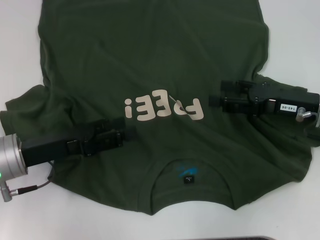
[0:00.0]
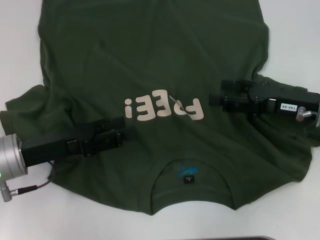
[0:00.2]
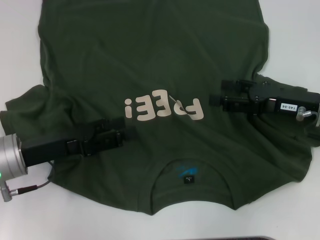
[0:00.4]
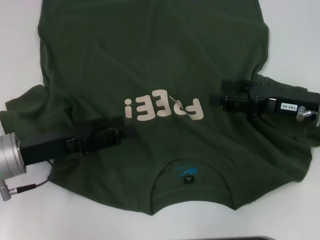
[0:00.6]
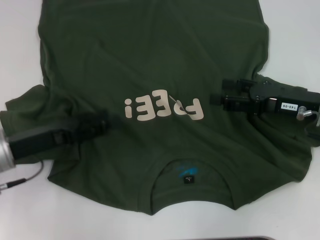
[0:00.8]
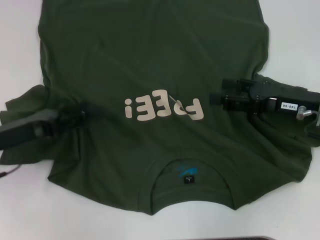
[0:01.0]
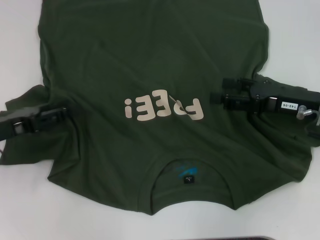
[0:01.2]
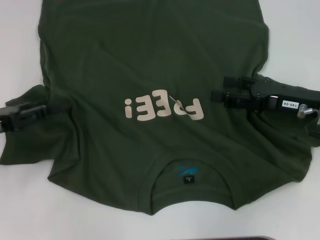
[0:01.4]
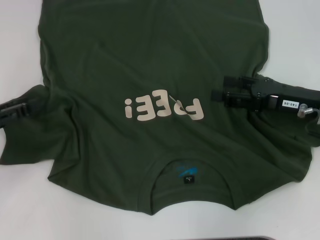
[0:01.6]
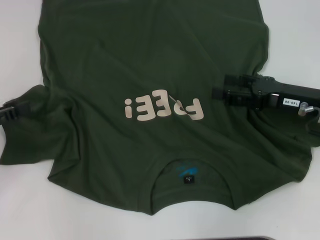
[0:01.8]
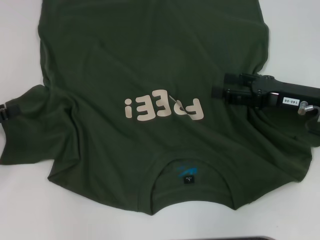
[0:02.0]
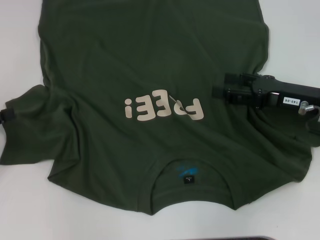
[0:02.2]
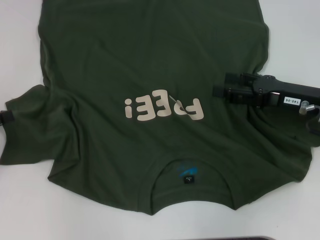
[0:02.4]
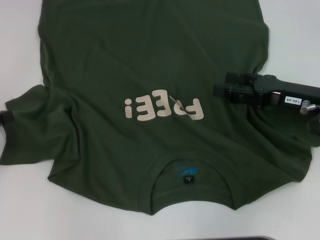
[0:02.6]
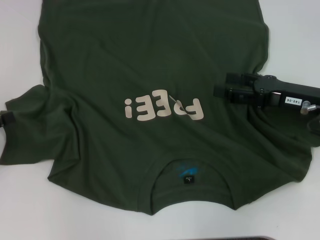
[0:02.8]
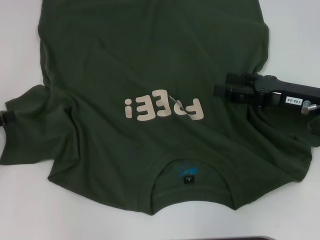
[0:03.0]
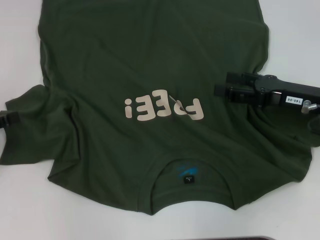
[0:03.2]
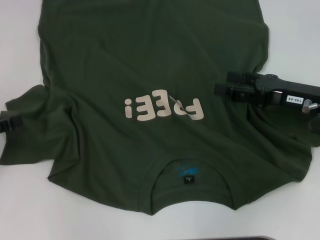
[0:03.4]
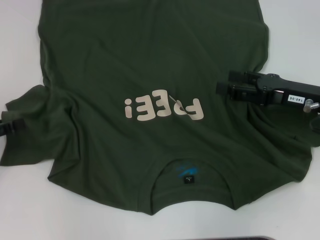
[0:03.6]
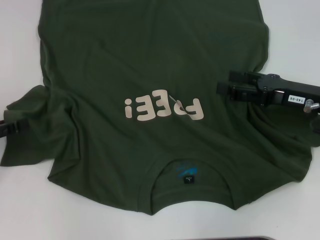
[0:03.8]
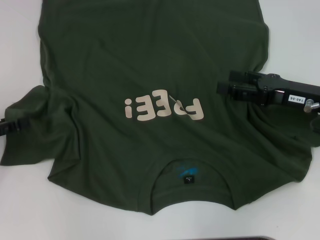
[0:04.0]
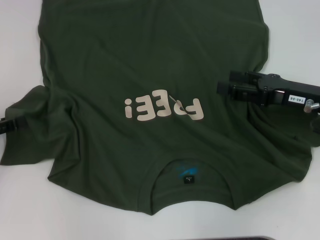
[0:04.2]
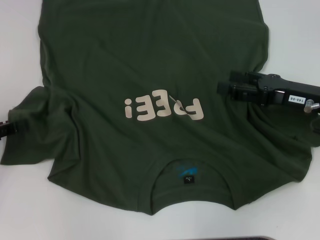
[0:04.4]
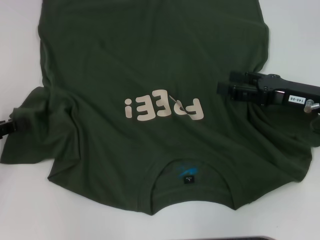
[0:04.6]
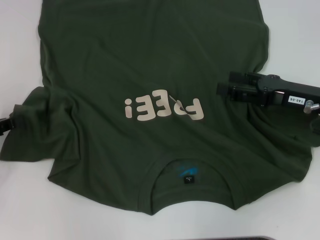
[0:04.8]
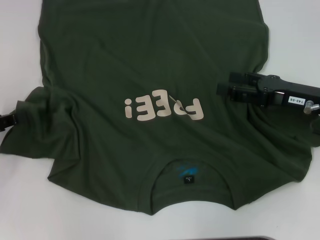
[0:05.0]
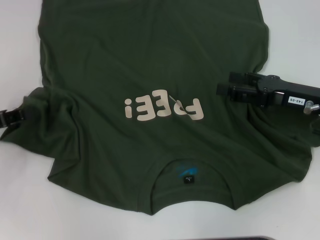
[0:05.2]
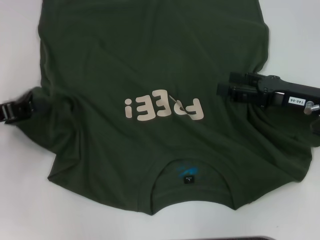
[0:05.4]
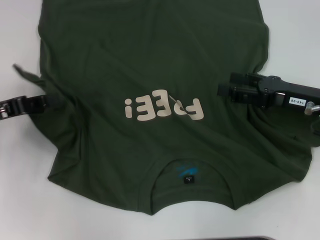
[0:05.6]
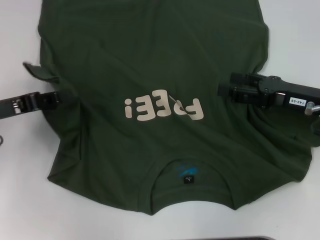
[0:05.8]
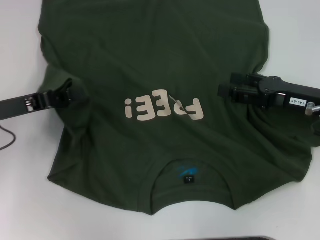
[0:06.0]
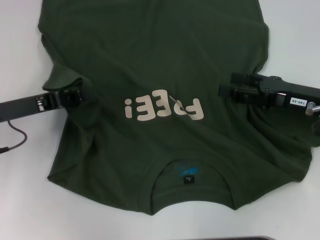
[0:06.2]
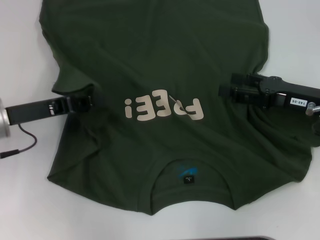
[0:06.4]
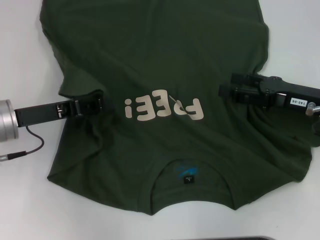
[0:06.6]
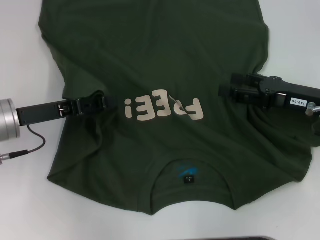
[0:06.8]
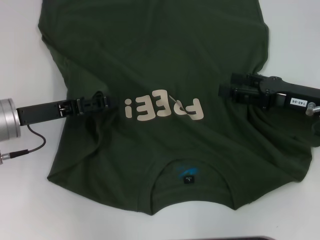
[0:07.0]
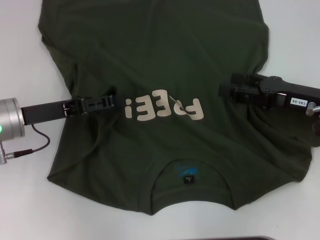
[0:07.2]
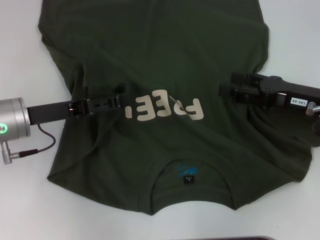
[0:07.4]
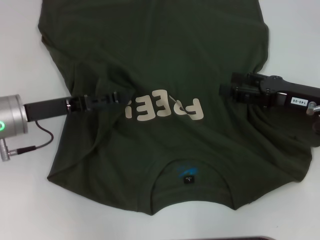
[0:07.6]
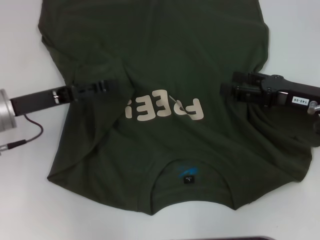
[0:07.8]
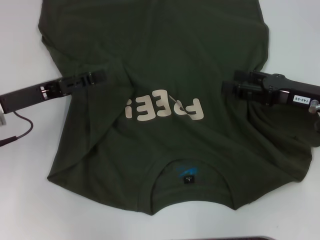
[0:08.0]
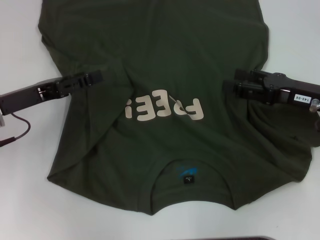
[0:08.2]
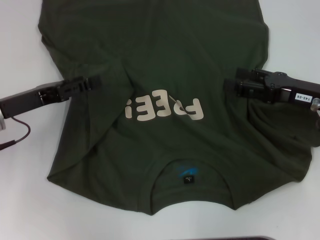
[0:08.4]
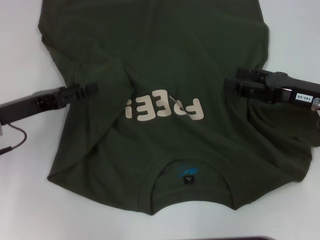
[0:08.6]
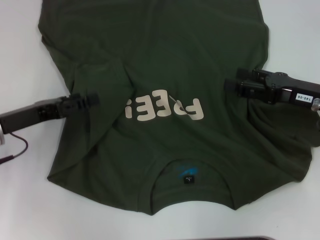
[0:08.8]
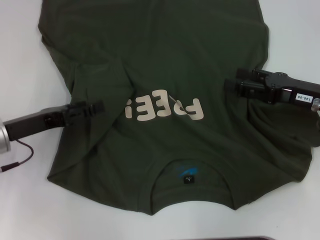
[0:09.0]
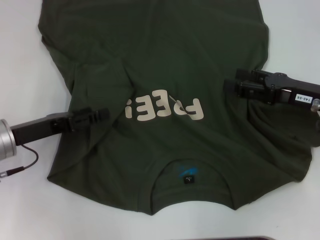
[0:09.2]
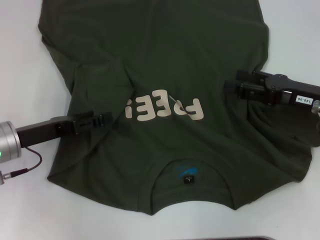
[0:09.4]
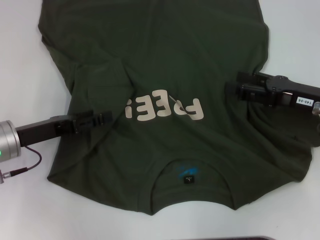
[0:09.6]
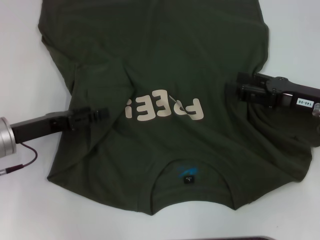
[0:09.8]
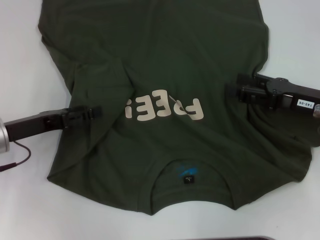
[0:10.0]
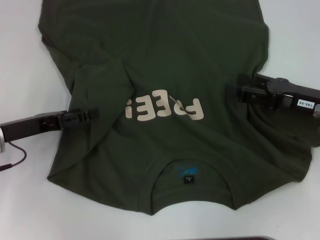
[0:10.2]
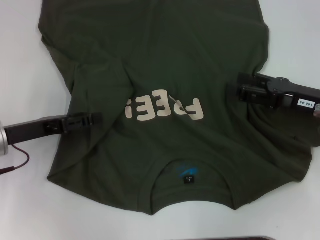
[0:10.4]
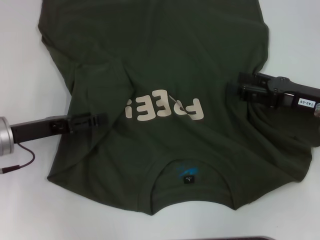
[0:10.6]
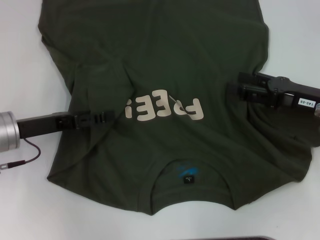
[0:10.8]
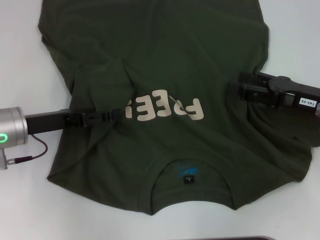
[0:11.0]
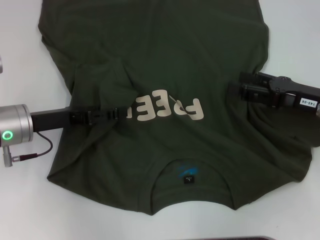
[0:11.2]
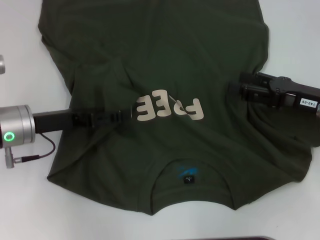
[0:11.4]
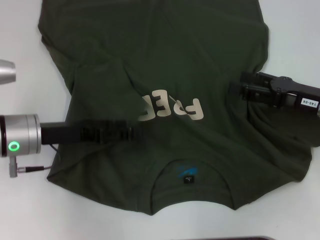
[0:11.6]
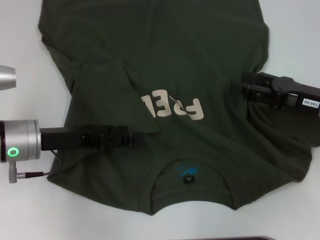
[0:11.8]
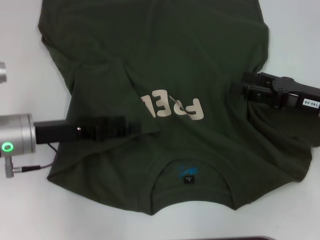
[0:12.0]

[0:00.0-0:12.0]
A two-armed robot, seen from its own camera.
Step, 0:00.0 to 0:10.8: Fold the bottom left sleeve with your left hand.
0:00.0 to 0:01.6: The left gripper travels to the left by approximately 10 cm.
0:01.6 to 0:04.4: The grippers make only small movements.
0:04.4 to 0:06.0: The left gripper goes roughly 10 cm to the right, and closes up.
0:06.0 to 0:07.6: The left gripper moves about 5 cm, and opens its fingers.
0:07.6 to 0:12.0: The grippers stay close to where they were, moving slightly.

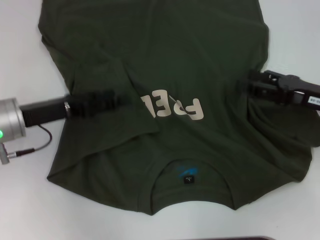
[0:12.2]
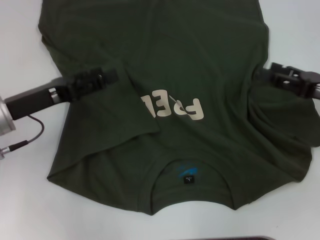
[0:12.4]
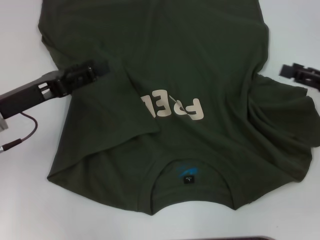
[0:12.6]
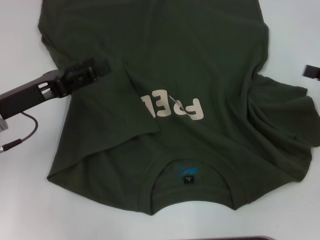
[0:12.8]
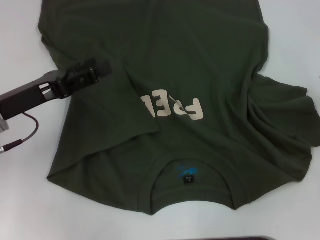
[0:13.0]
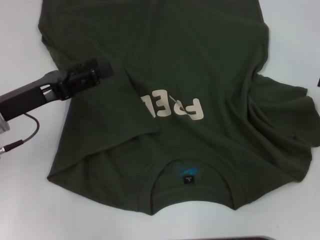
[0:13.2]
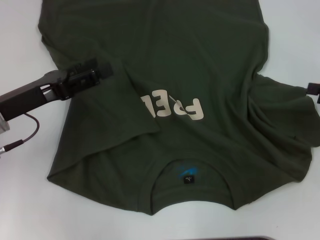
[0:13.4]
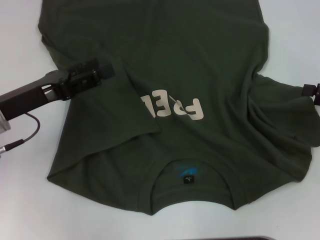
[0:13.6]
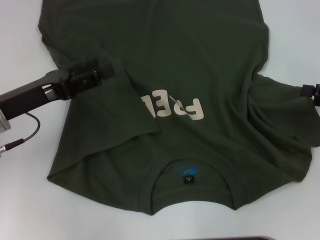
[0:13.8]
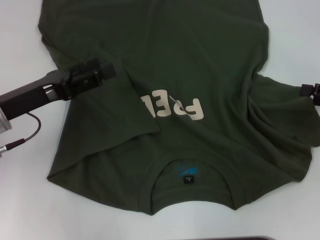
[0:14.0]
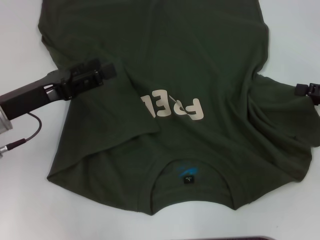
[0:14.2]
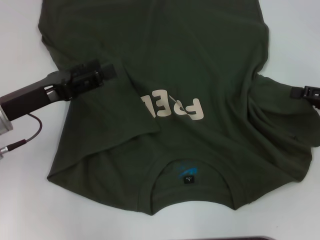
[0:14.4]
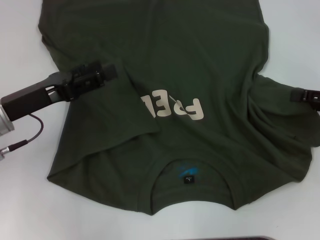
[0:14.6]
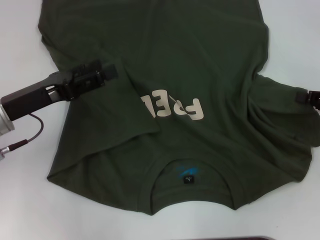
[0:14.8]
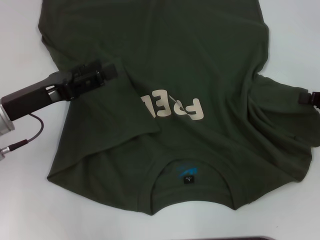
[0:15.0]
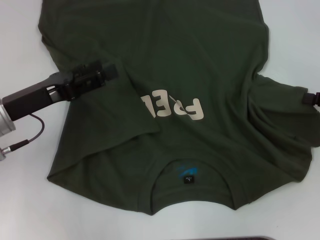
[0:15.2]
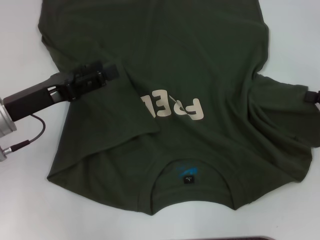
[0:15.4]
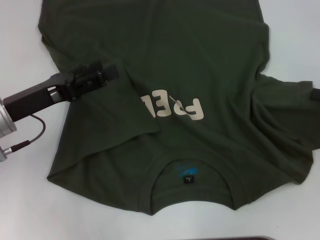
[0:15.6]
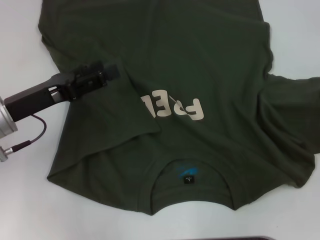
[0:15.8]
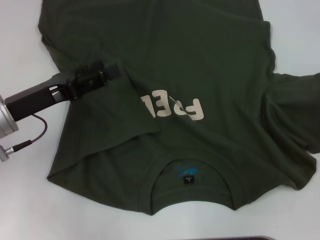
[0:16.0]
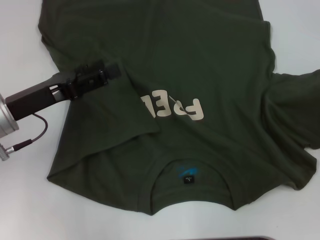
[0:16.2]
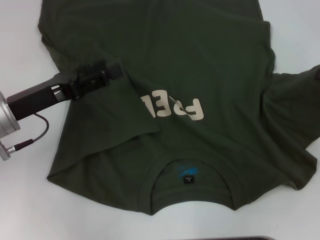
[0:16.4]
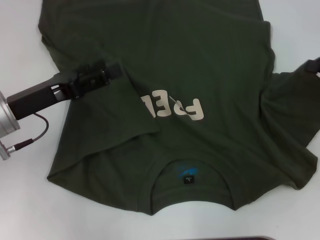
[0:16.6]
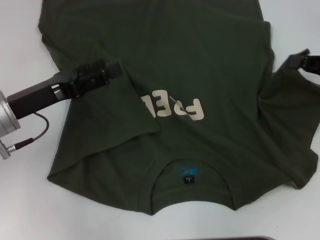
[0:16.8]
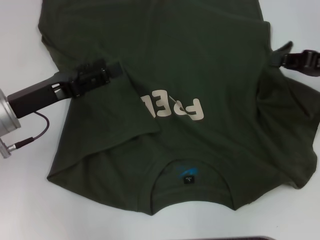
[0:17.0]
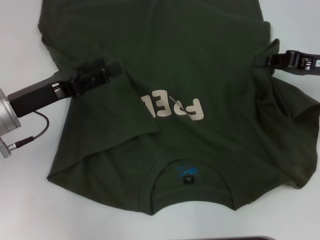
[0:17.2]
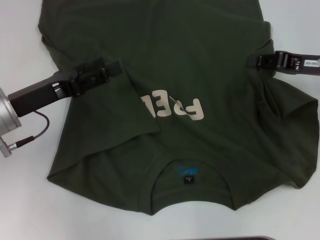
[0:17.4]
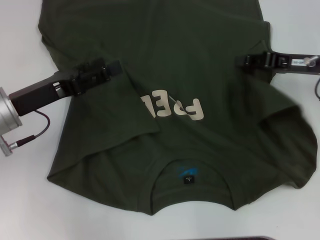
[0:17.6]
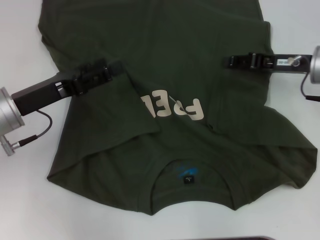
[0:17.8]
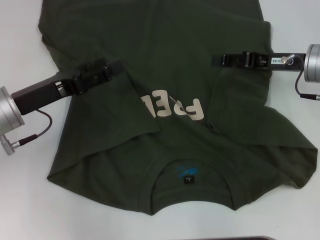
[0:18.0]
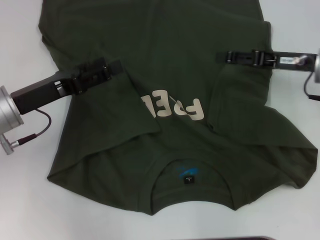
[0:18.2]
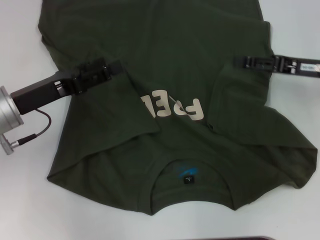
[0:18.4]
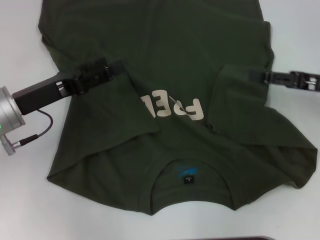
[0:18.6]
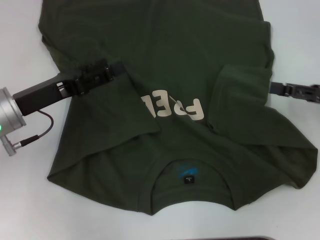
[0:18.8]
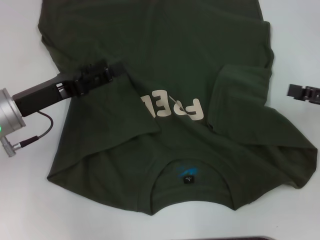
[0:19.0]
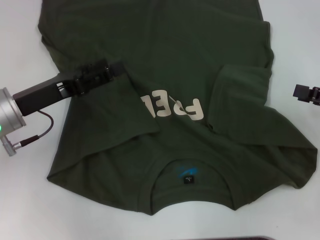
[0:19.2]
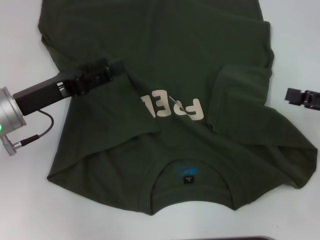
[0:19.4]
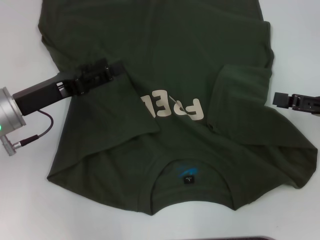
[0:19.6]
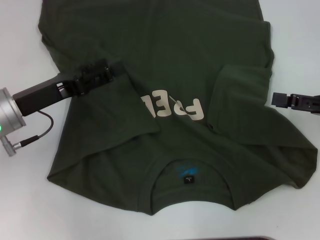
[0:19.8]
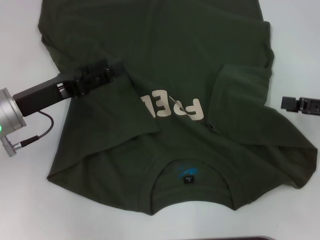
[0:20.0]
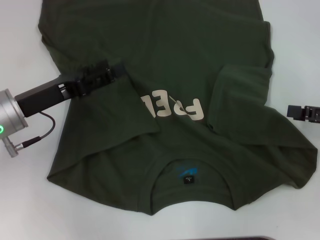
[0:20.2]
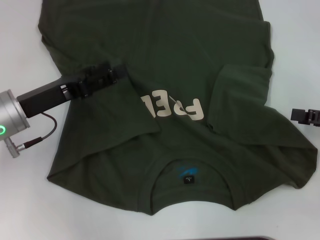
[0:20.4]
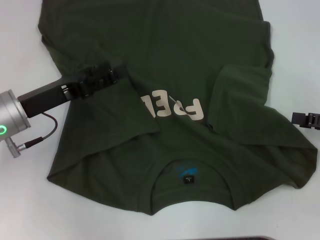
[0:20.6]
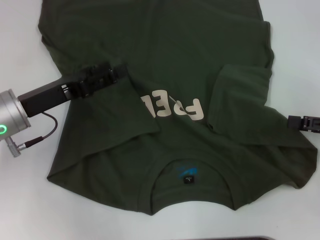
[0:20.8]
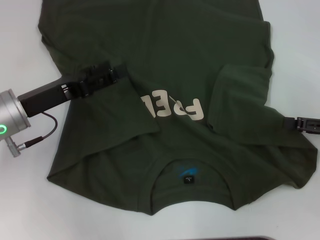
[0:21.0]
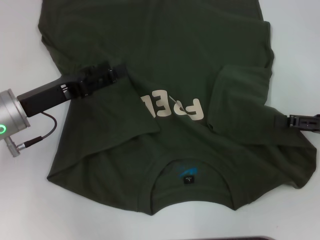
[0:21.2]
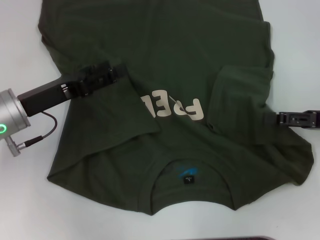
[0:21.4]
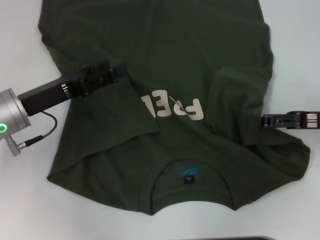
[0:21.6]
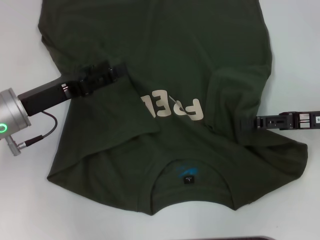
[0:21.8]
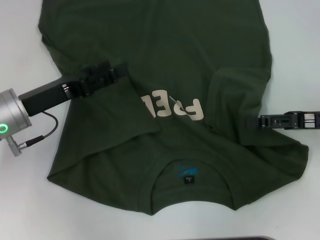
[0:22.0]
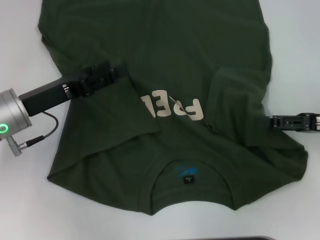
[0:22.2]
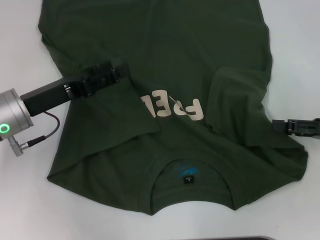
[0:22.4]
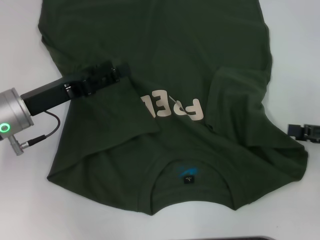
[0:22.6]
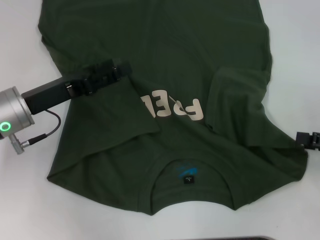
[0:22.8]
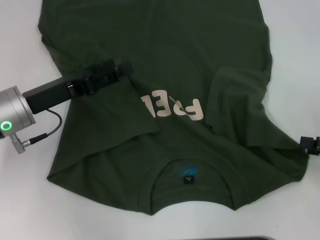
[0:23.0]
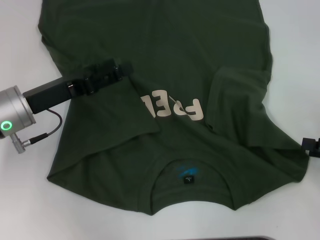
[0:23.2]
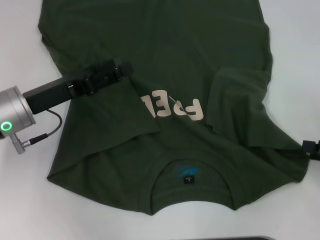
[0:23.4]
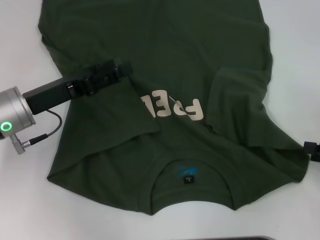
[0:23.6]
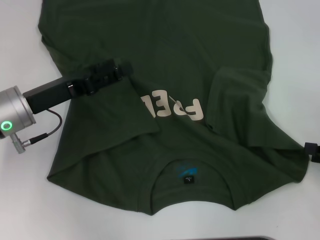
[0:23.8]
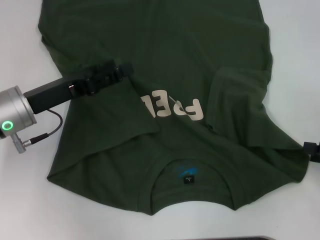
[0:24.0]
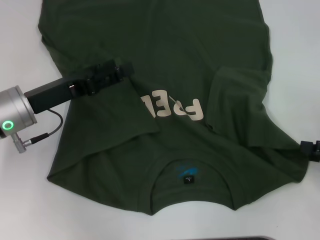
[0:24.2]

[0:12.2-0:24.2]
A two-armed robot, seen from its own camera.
Step, 0:12.2 to 0:18.0: Fold the bottom right sleeve with your right hand.
0:12.2 to 0:13.8: The right gripper shifts approximately 10 cm to the right.
0:15.2 to 0:16.6: There are only small adjustments of the grippers.
0:16.6 to 0:18.2: The right gripper goes roughly 10 cm to the left and forward, and opens.
0:18.2 to 0:19.8: The right gripper shifts some 10 cm backward and to the right, and opens up.
0:19.8 to 0:22.6: The grippers make only small movements.
0:22.6 to 0:24.2: There are only small adjustments of the grippers.
